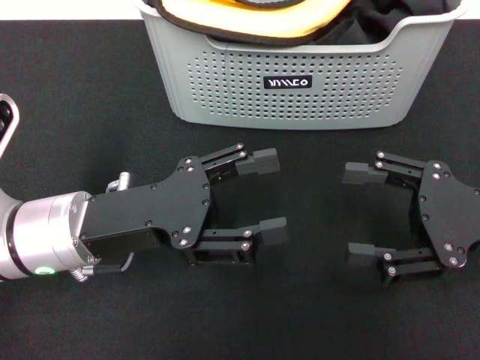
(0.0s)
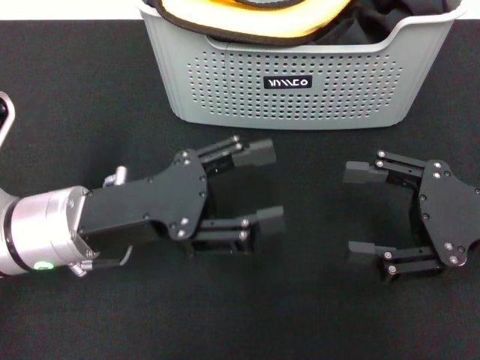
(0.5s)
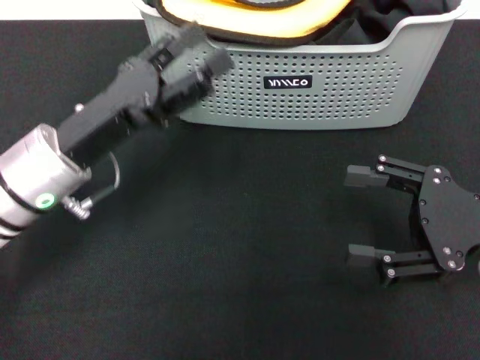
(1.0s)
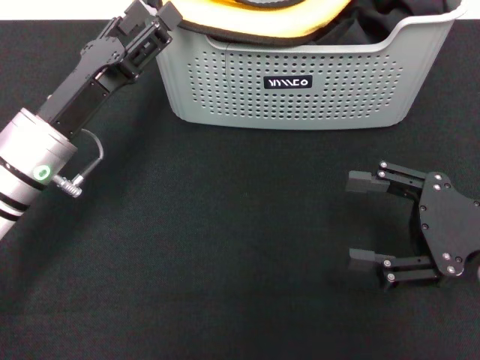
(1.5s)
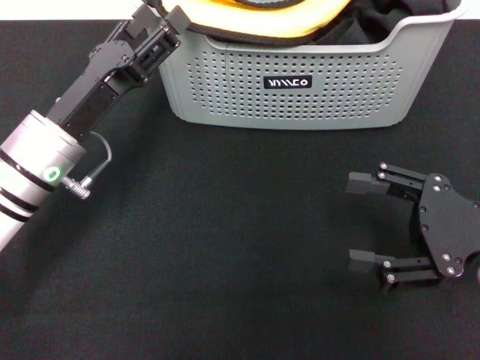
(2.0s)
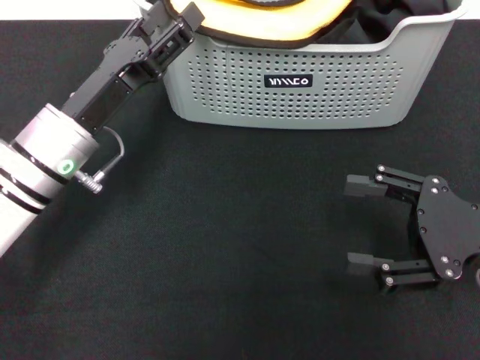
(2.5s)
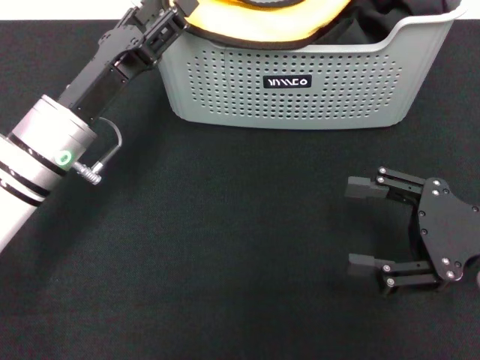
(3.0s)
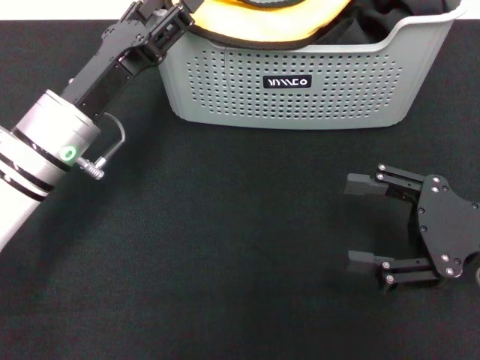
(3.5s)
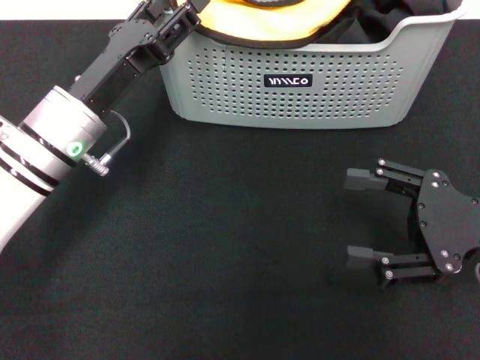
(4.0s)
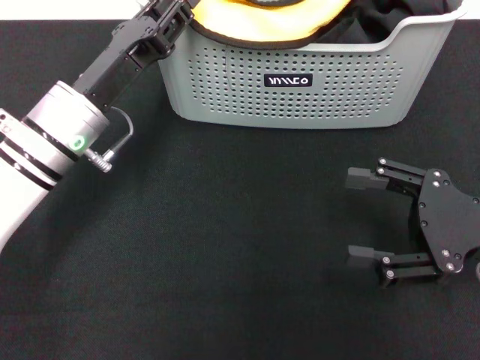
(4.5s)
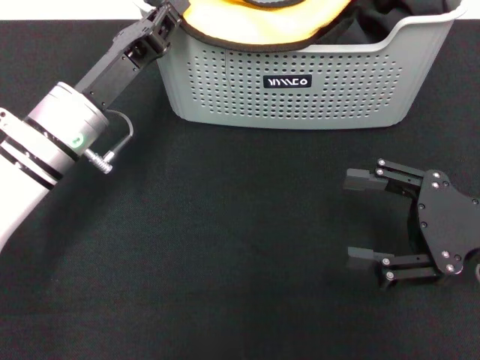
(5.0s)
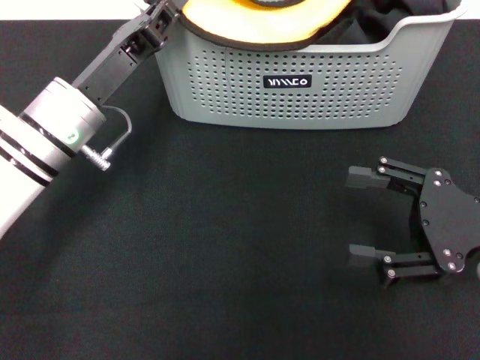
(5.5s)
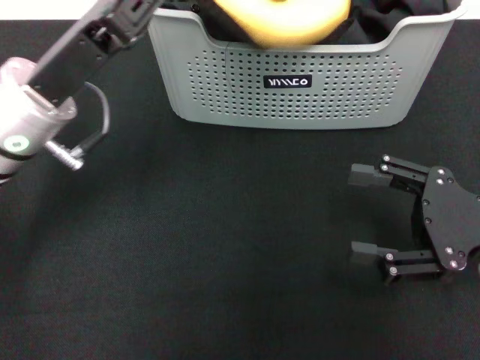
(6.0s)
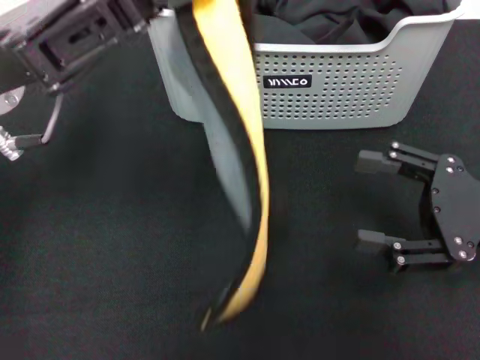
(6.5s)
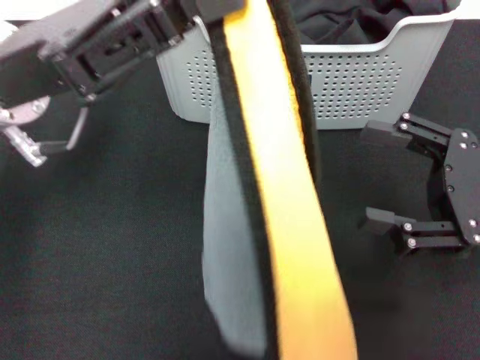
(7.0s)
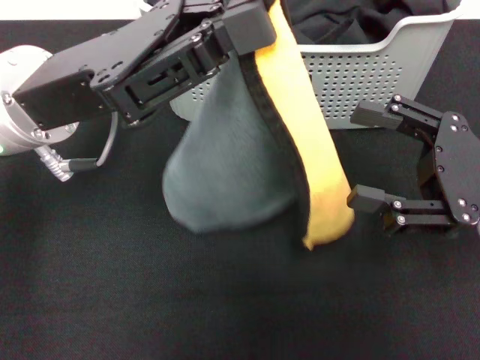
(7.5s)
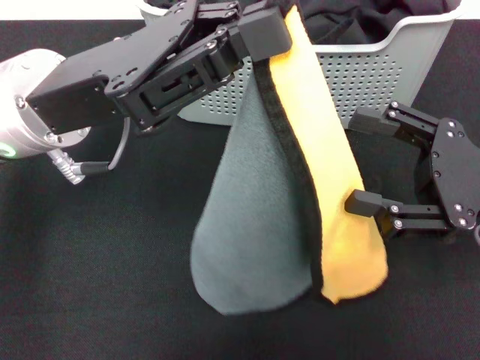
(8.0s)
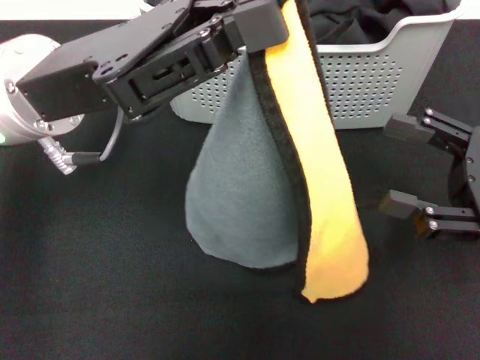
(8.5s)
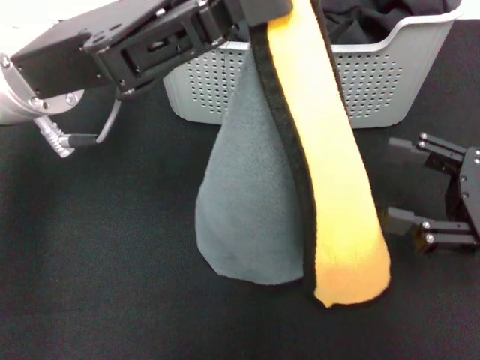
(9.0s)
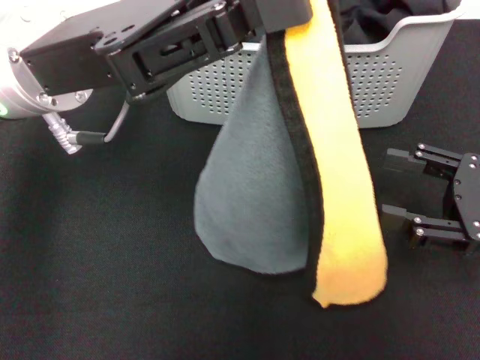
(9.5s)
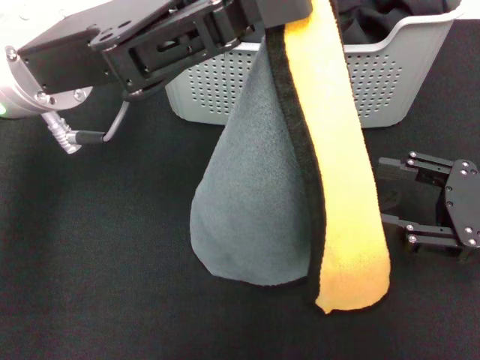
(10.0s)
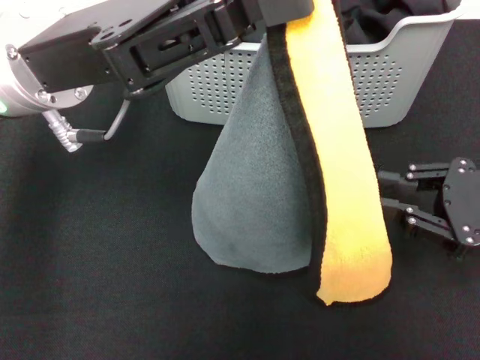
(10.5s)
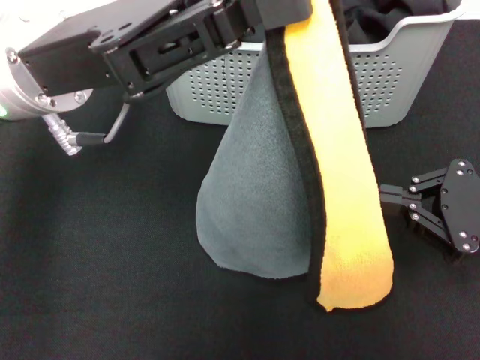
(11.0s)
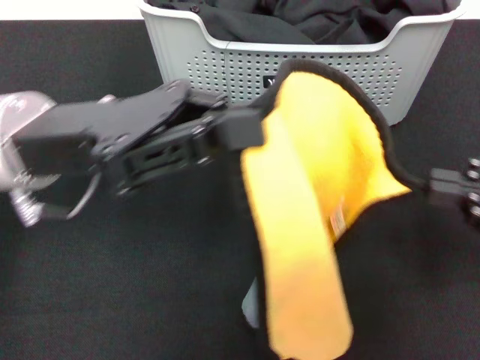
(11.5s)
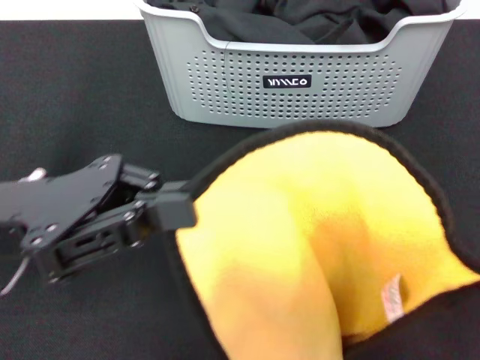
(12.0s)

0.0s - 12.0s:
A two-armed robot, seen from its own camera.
Task of the whole recording: pick up the towel from the storage box and lay it flat on the black tablecloth.
Step, 0.0s - 5.0s: Pick up a towel with the left gripper.
Step, 6.0s - 11.0s: Spread the towel flat with the left gripper.
0.0s - 2.0s: The left gripper moves forward, roughly 5 cm.
2.0s - 4.0s: The grippers make only small movements.
4.0s - 6.0s: The left gripper is displaced upward by roughly 5 cm, and closes.
6.0s - 8.0s: The left gripper moves roughly 5 cm.
10.0s - 12.0s: The right gripper heads backward and upward, covering roughly 15 cm, and closes. Meanwhile the left gripper moves backward, to the left and downward, some 10 cm.

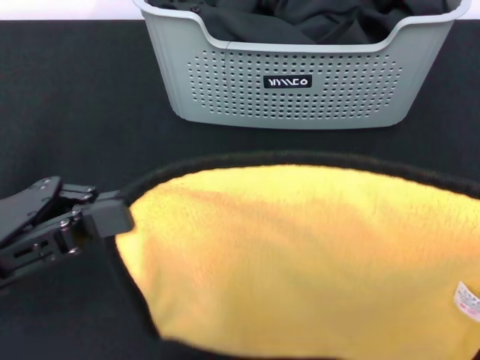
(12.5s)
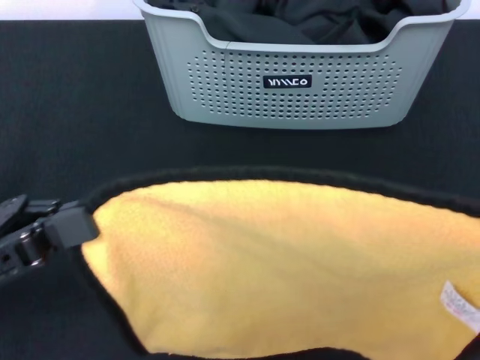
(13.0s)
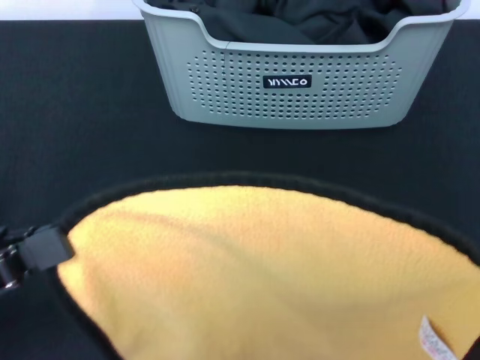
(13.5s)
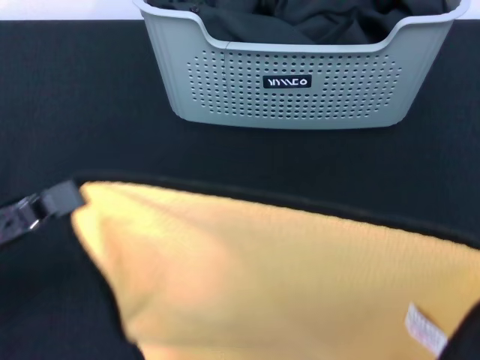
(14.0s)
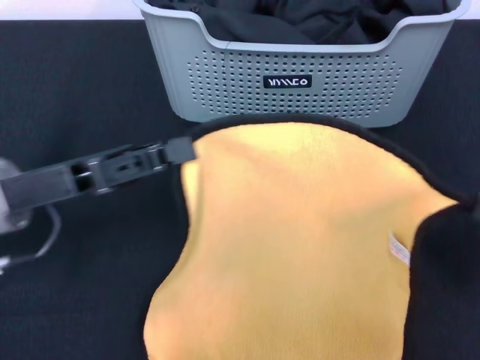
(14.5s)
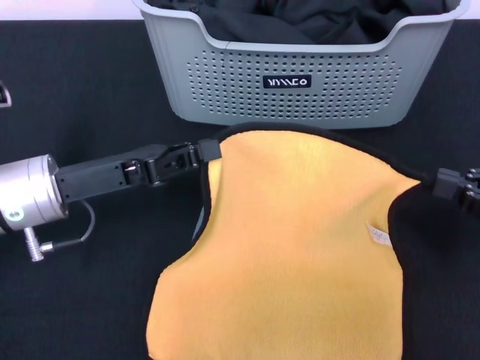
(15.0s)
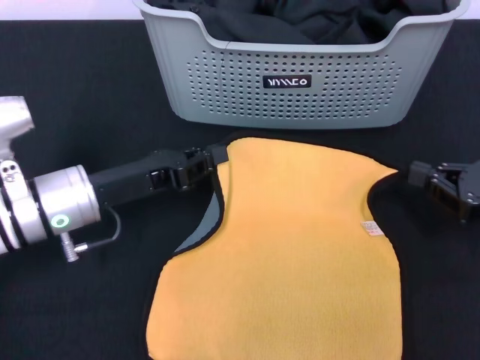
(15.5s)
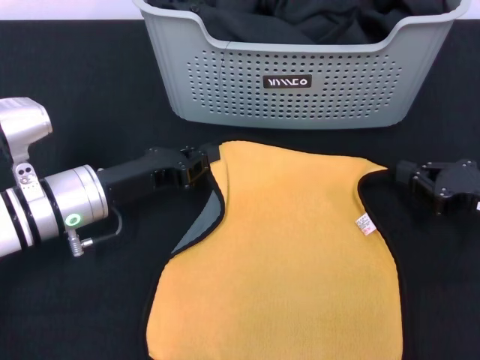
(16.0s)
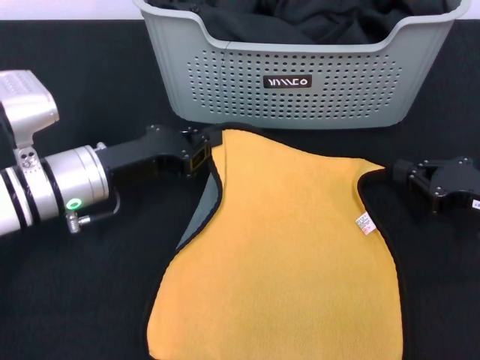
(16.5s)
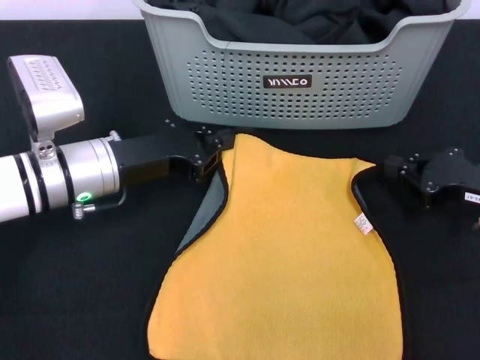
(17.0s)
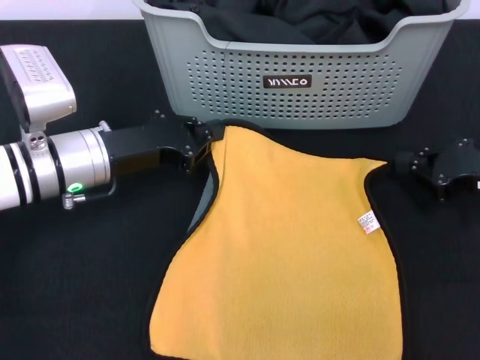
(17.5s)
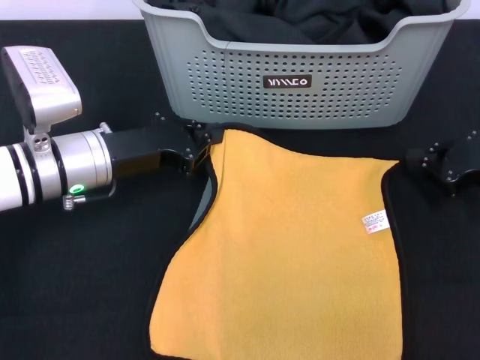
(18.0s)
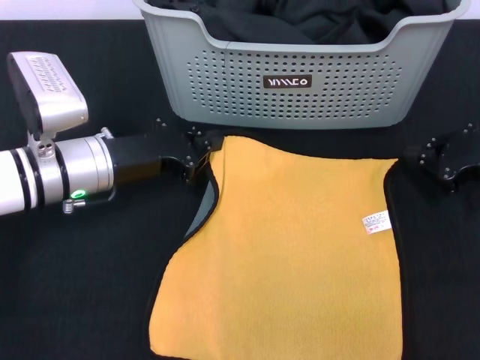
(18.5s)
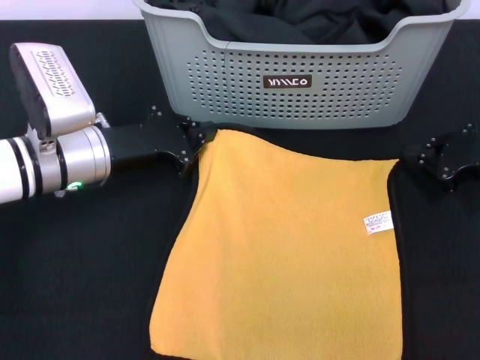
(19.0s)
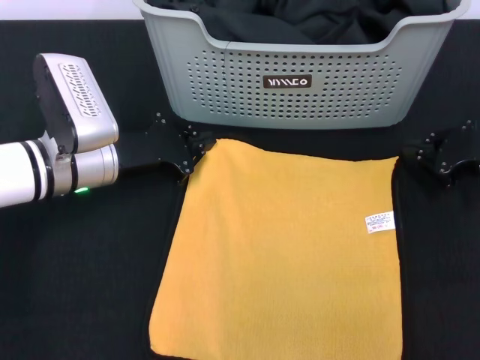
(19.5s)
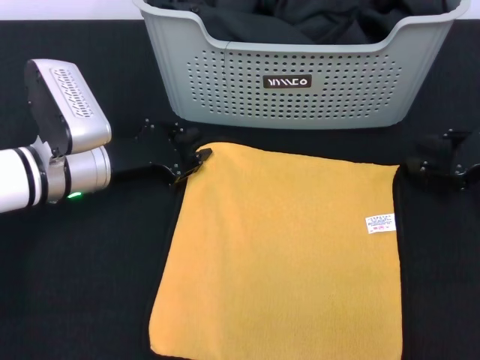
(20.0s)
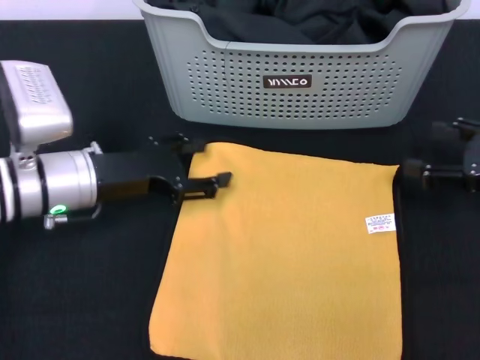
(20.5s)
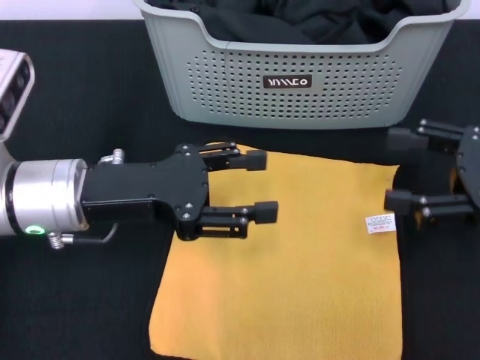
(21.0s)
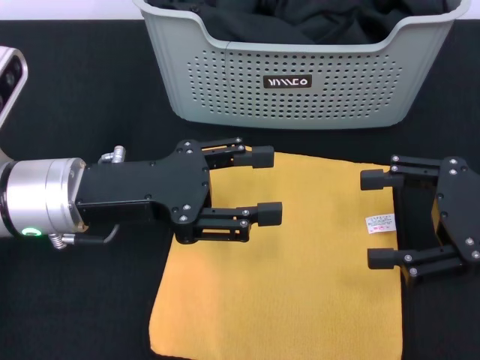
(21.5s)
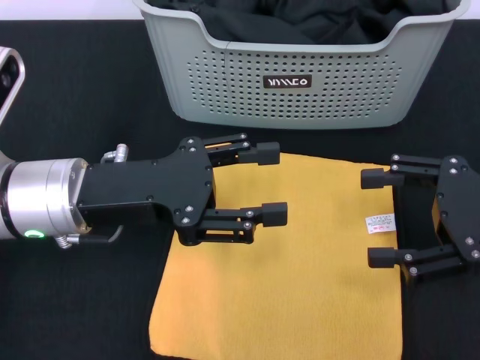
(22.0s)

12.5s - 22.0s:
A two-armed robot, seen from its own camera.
Task of the whole recording: pick up the towel from the storage box and lay it flat on the black tablecloth.
Step, 12.5s - 19.5s: Spread the towel flat with the right gripper.
12.5s - 14.5s: The left gripper moves forward, about 5 cm. Meanwhile the right gripper heads forward and downward, covering approximately 15 cm.
14.5s - 16.5s: The left gripper heads downward and forward, covering some 5 cm. Meanwhile the right gripper shifts some 15 cm forward and downward.
16.5s - 18.0s: The right gripper moves about 5 cm.
20.0s - 22.0s: The right gripper goes roughly 10 cm backward and upward, and opens. The left gripper is displaced upward and backward by roughly 10 cm, and opens.
